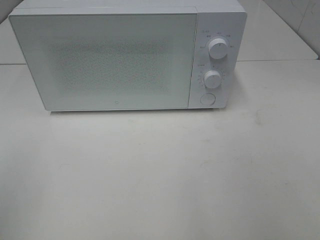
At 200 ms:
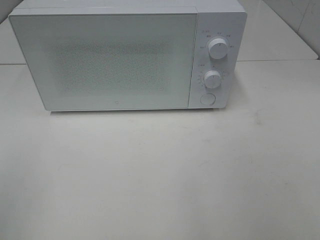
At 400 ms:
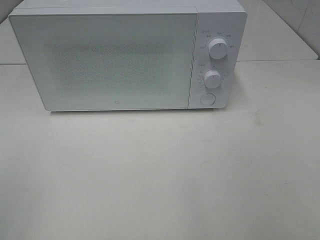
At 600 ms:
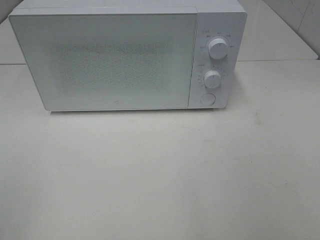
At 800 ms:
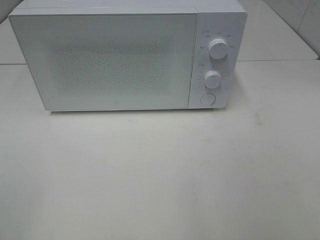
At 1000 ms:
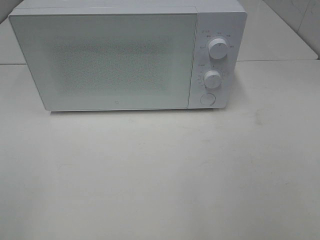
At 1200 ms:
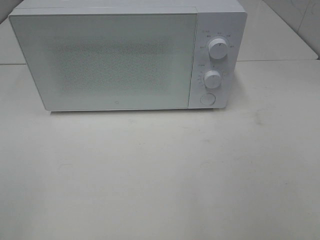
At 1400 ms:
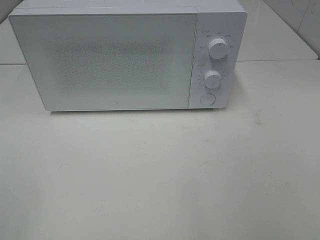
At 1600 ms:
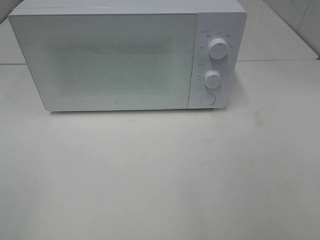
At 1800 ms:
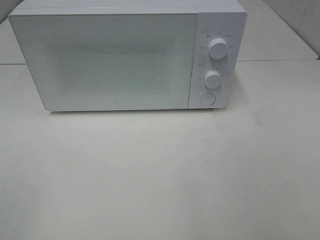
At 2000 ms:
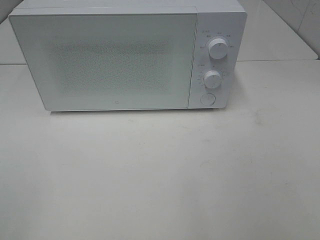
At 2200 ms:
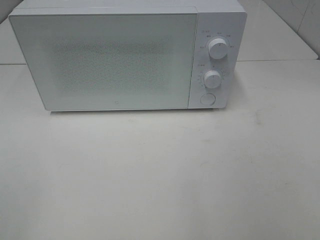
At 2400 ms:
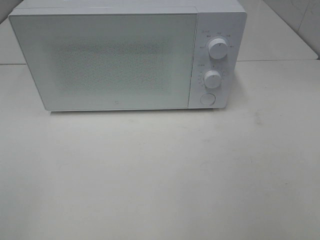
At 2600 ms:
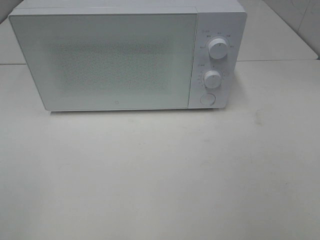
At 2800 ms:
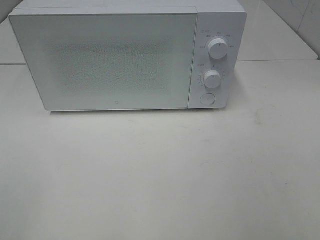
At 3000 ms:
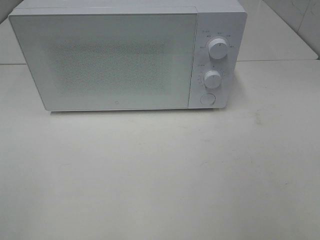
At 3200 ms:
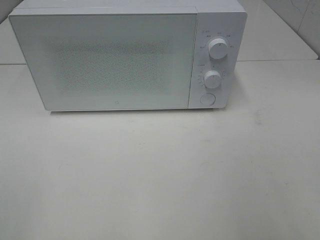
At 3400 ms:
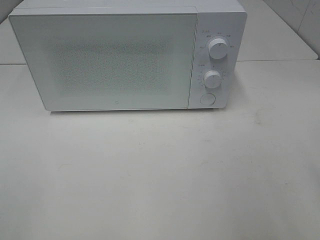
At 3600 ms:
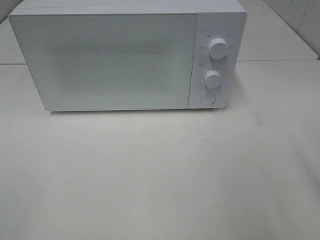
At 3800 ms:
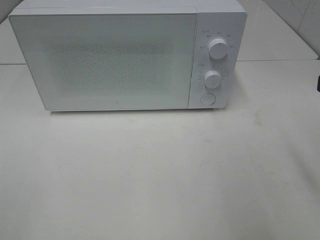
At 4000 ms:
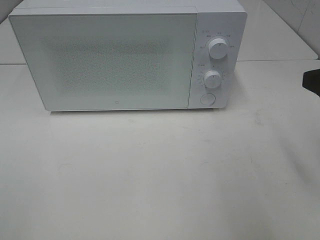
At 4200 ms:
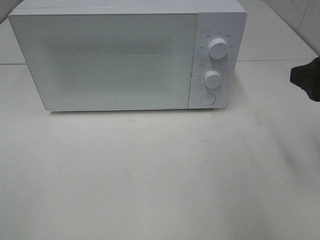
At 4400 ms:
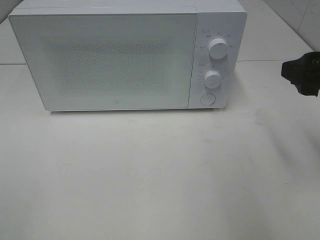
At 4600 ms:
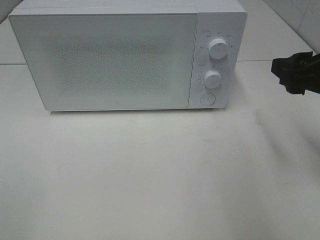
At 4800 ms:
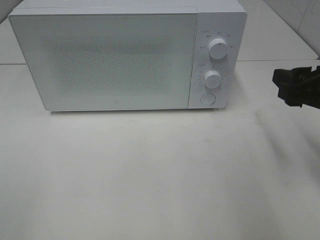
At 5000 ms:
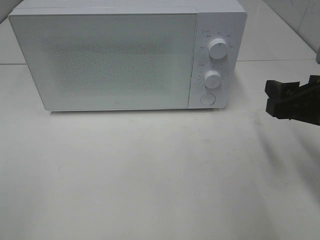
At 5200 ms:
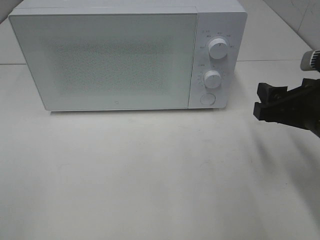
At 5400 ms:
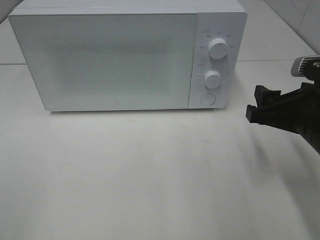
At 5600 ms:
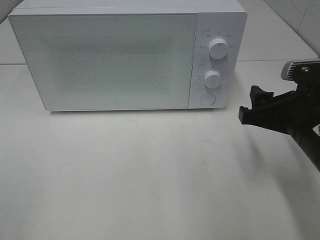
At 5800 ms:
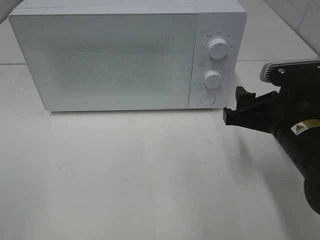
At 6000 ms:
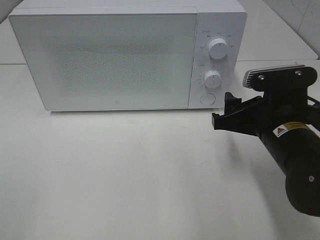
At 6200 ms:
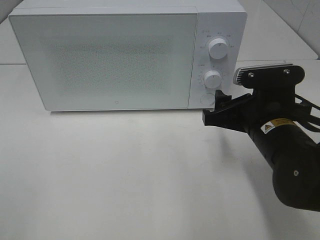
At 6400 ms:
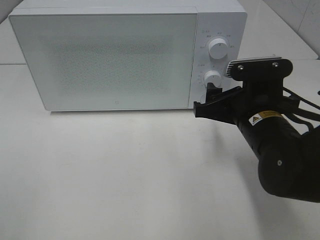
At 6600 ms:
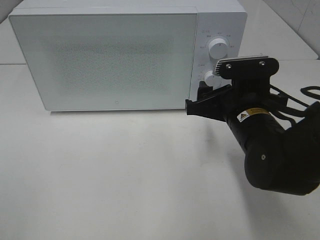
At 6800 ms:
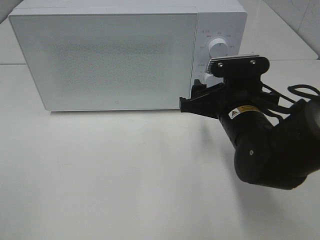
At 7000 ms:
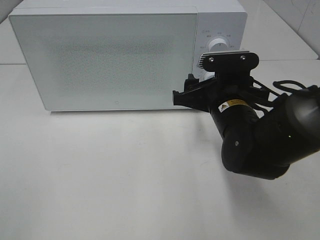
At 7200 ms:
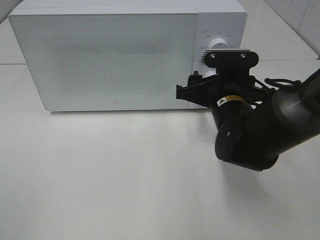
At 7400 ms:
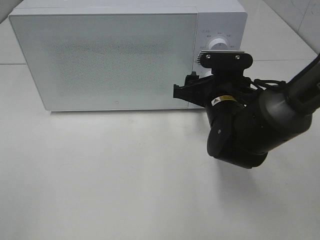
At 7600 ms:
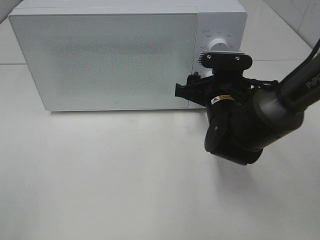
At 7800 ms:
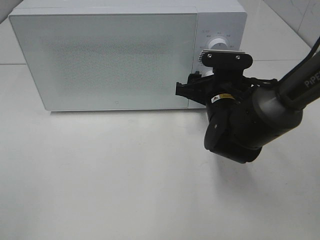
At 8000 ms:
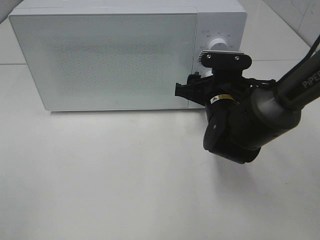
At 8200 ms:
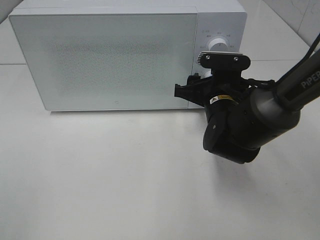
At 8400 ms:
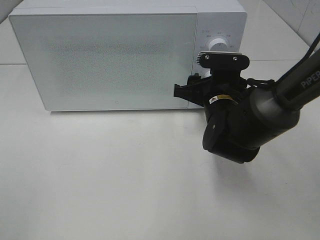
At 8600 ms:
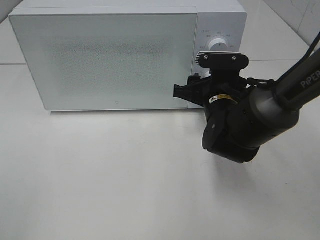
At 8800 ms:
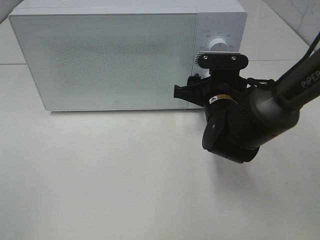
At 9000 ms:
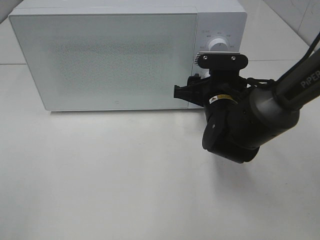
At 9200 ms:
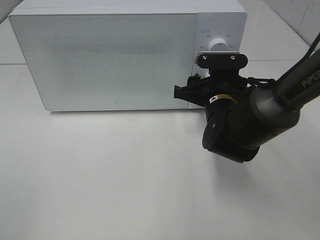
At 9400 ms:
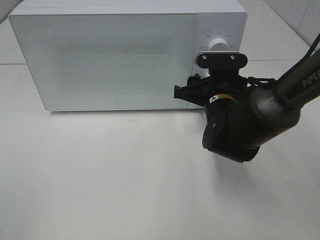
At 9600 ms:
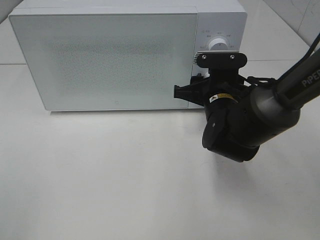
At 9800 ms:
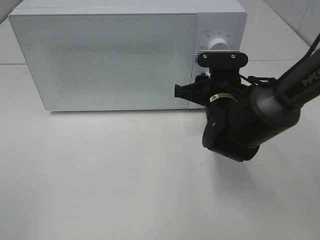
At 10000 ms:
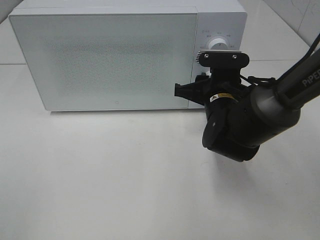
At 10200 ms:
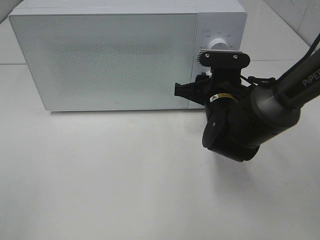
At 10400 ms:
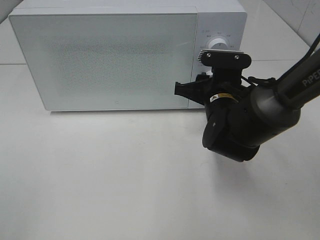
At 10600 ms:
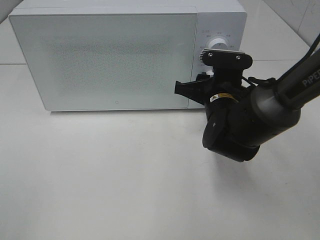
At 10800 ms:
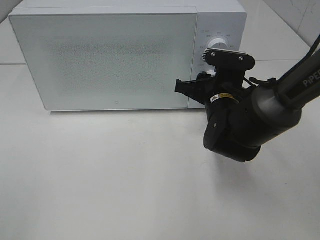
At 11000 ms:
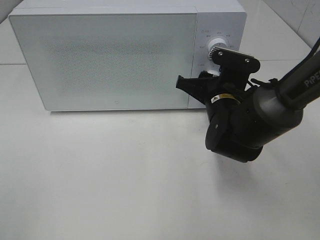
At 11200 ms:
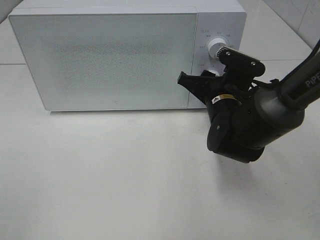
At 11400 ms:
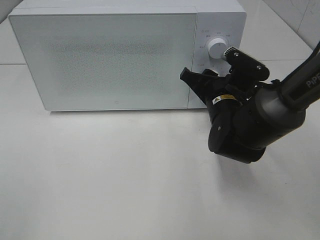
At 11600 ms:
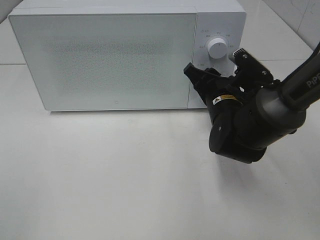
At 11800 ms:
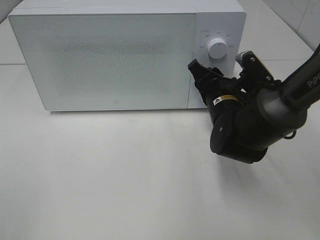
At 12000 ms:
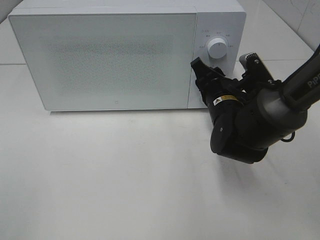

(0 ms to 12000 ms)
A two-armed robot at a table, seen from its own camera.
Task of the whole recording: Heat the burger.
3000 ms - 4400 ms: The right gripper travels forward by about 15 cm.
4400 ms - 6000 ms: The right gripper travels downward and to the left by some 15 cm.
6000 ms - 7600 ms: The right gripper moves forward and to the left, about 10 cm.
7600 ms - 10400 ms: The two grippers keep their place.

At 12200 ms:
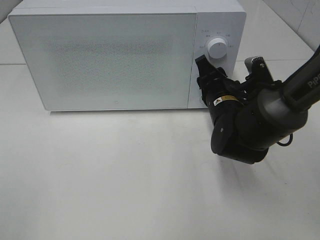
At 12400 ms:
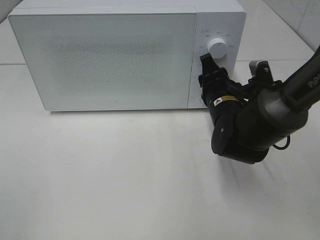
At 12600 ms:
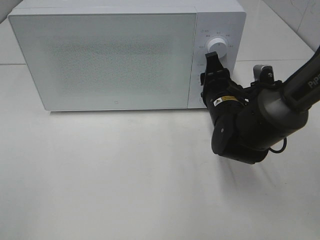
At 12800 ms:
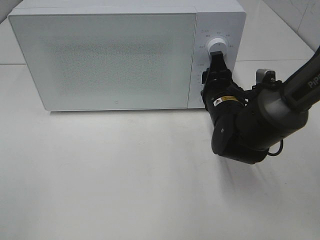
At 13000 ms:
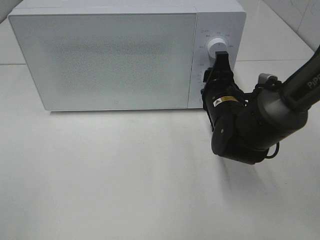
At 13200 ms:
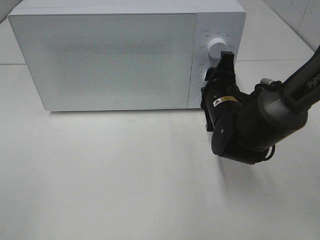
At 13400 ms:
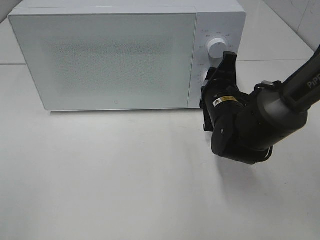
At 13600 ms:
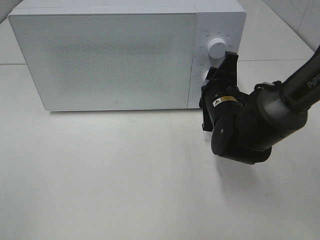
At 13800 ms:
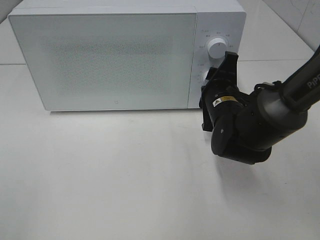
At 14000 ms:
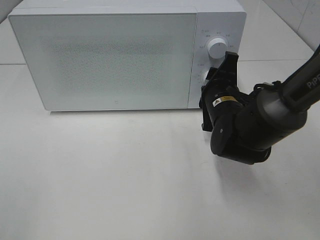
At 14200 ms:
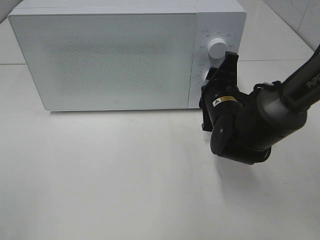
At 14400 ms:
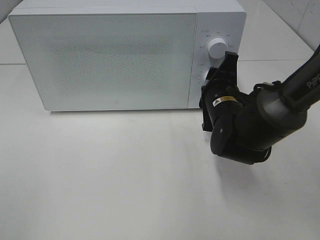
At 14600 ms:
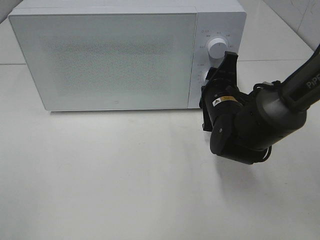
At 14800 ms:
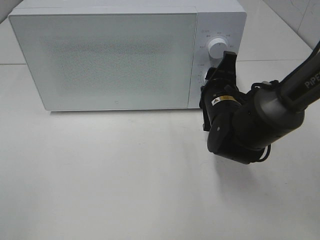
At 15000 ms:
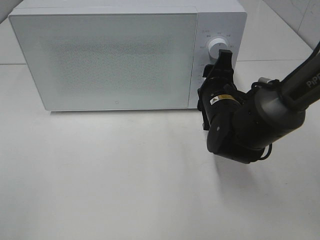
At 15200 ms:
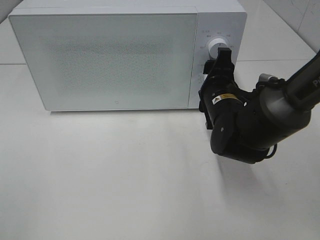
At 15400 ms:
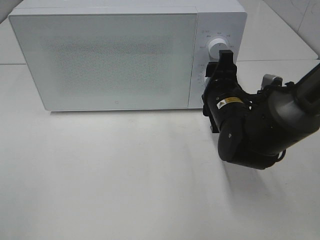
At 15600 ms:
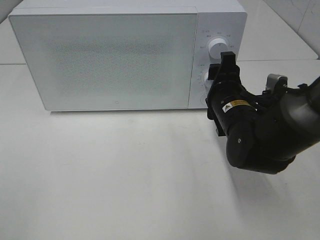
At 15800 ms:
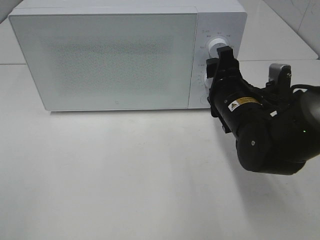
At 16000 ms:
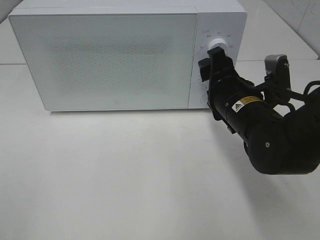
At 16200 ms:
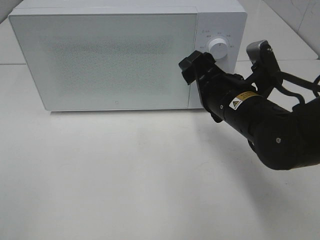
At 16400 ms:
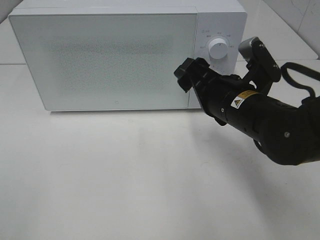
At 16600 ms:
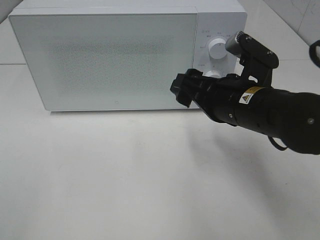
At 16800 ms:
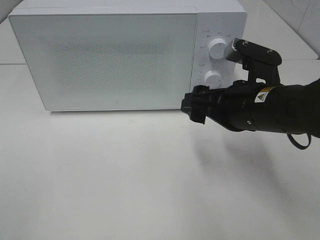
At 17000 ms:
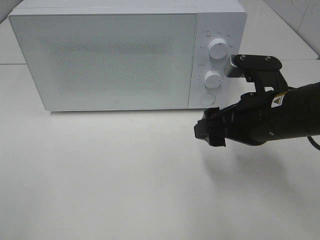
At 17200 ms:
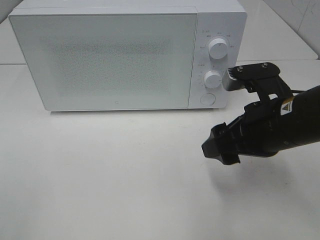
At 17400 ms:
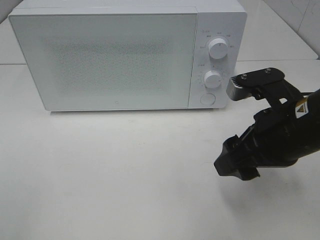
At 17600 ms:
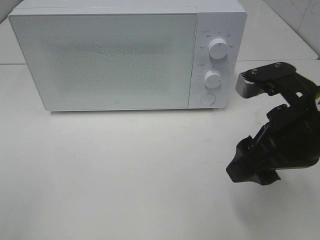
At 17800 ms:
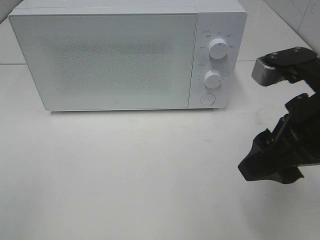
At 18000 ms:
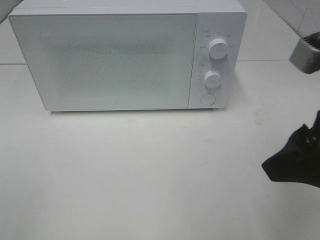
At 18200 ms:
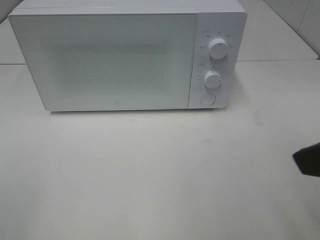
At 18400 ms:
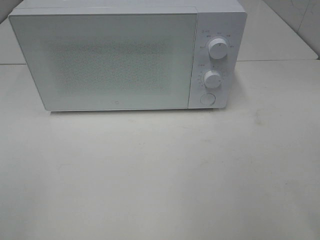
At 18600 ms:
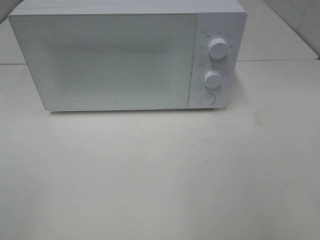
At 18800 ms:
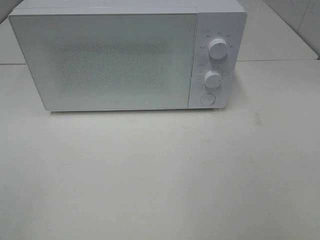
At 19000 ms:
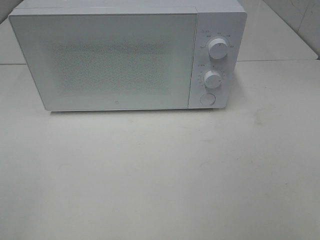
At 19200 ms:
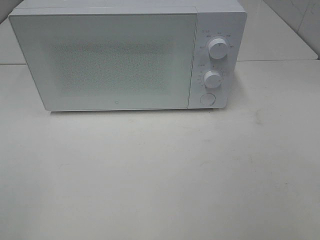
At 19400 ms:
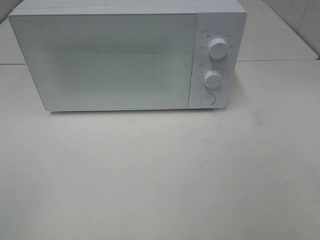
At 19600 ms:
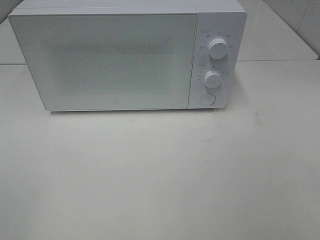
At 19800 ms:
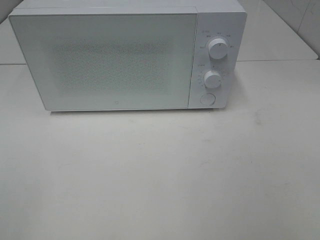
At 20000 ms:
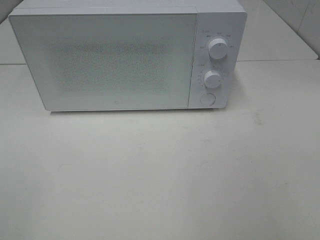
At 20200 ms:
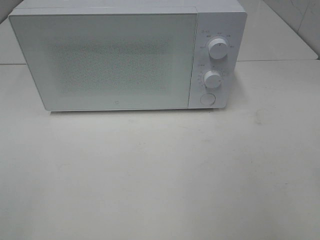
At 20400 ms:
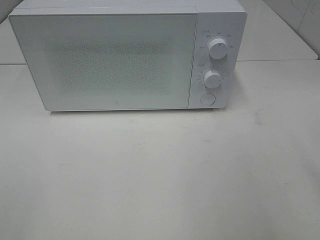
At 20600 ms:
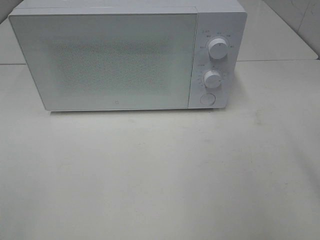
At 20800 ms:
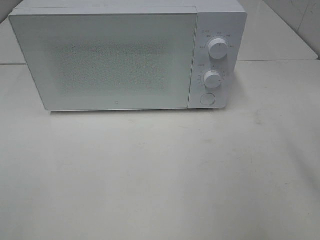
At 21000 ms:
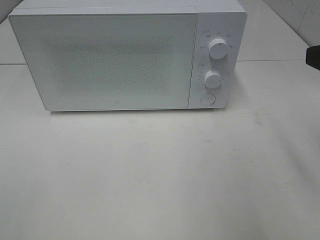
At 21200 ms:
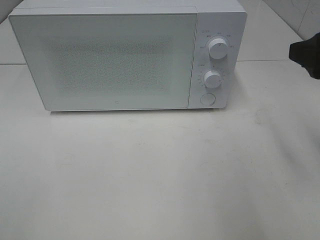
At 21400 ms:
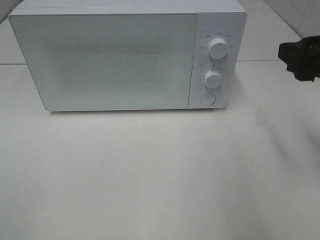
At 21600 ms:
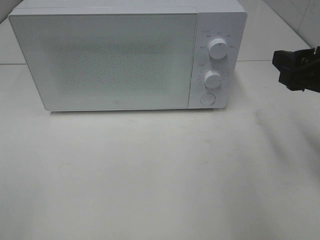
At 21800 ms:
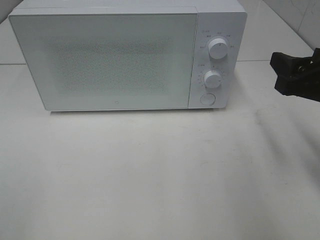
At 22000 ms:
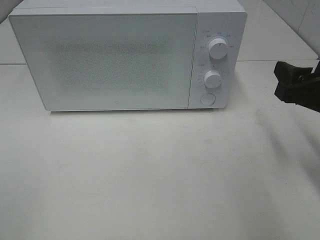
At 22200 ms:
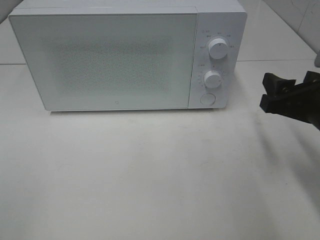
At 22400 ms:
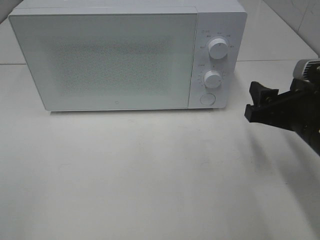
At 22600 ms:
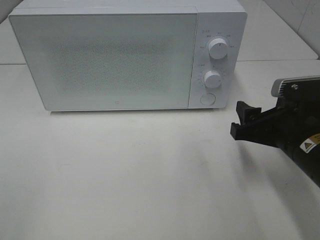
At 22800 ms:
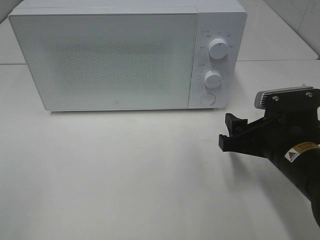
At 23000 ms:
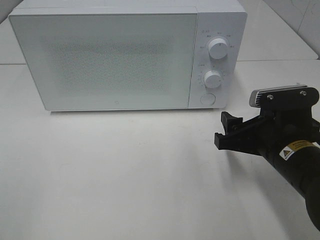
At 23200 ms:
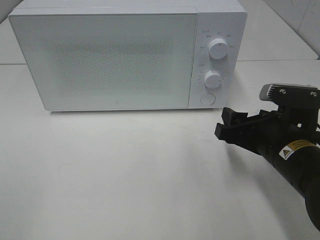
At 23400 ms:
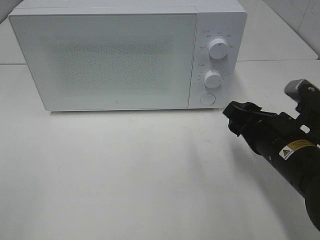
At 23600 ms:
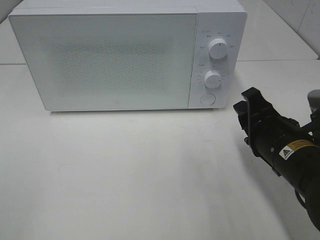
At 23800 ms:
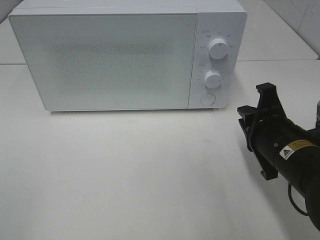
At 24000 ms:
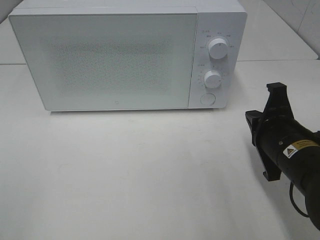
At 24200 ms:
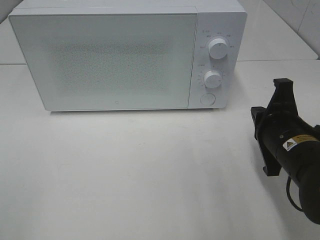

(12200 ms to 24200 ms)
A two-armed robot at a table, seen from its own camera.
Task of the whole recording: Heat the burger.
Step, 12200 ms - 15600 ms: Right hand: twist timer button.
13800 ms - 15200 ms: The grippers stay close to where they were, moving slightly.
15200 ms - 16600 ms: The right gripper travels backward and upward by approximately 10 cm.
16600 ms - 18200 ms: The right gripper travels backward, upward and to the right by some 20 cm.
18200 ms - 19800 ms: The right gripper goes about 10 cm backward and to the right.
19800 ms - 21200 ms: The right gripper moves forward, about 20 cm.
21200 ms - 22600 ms: The right gripper travels downward by some 15 cm.
22600 ms - 24200 ms: The right gripper closes its fingers.
